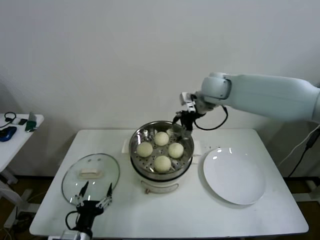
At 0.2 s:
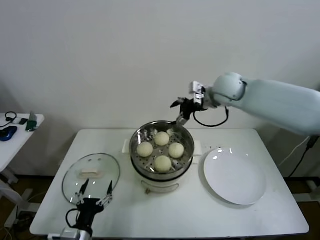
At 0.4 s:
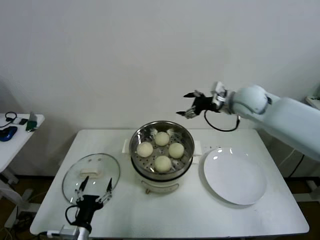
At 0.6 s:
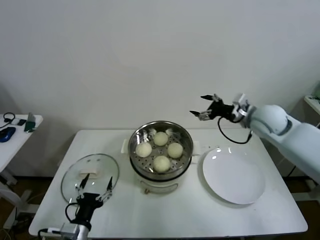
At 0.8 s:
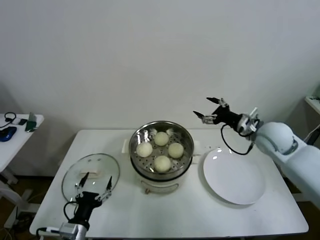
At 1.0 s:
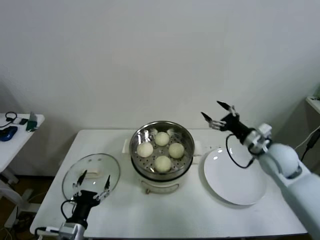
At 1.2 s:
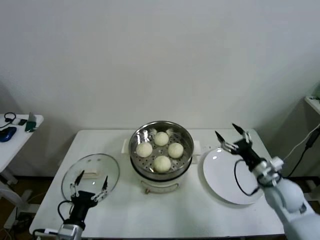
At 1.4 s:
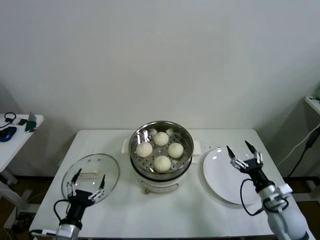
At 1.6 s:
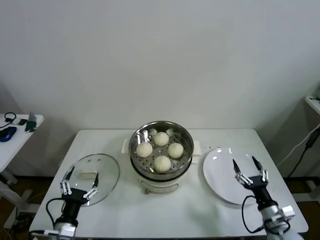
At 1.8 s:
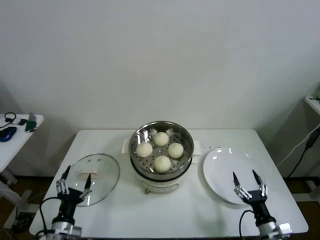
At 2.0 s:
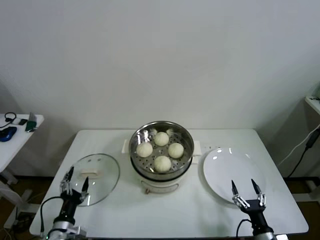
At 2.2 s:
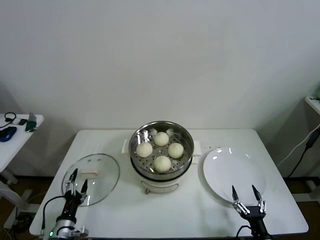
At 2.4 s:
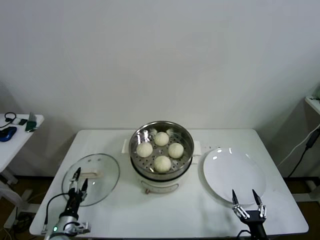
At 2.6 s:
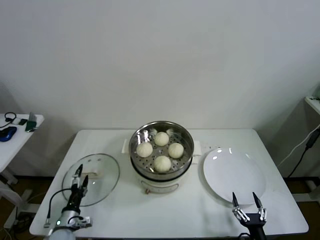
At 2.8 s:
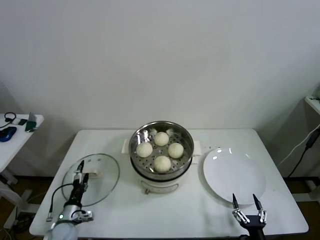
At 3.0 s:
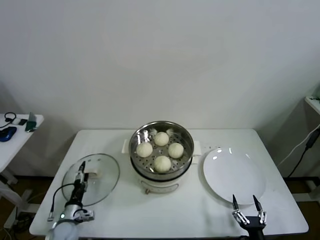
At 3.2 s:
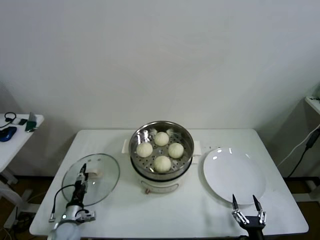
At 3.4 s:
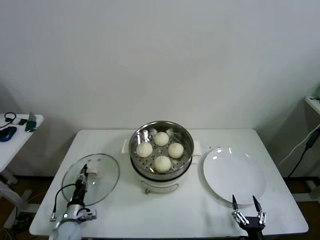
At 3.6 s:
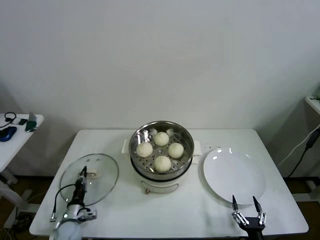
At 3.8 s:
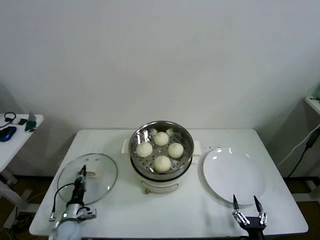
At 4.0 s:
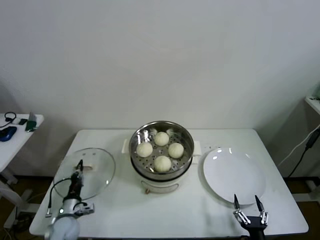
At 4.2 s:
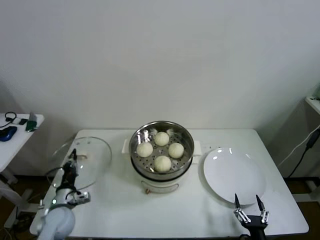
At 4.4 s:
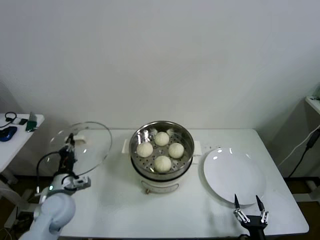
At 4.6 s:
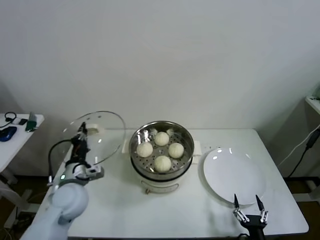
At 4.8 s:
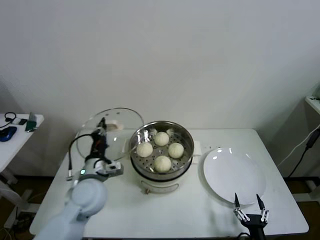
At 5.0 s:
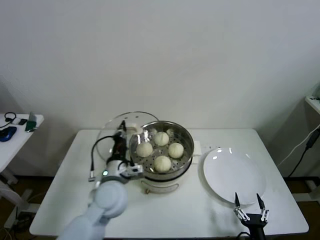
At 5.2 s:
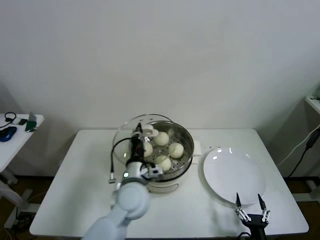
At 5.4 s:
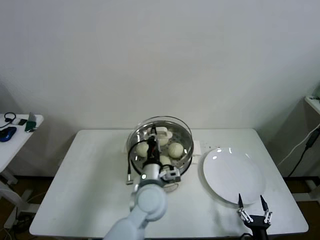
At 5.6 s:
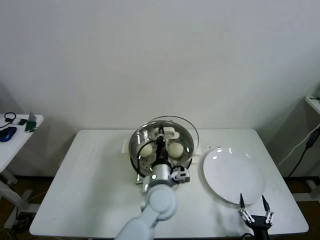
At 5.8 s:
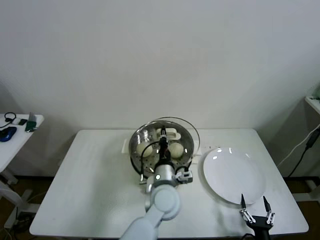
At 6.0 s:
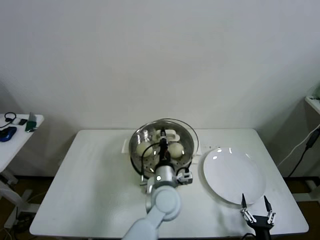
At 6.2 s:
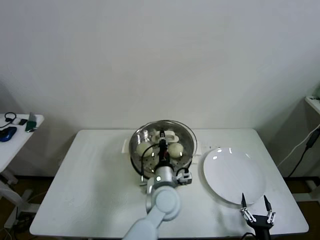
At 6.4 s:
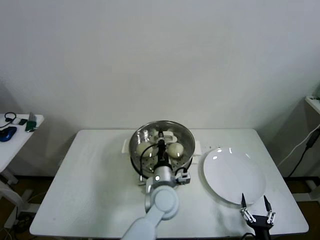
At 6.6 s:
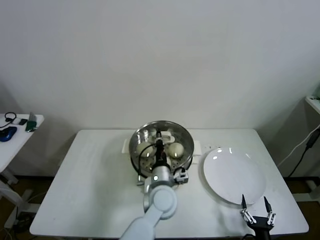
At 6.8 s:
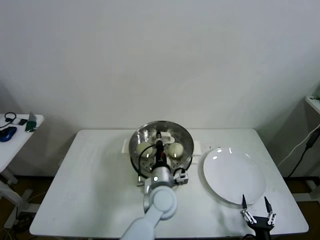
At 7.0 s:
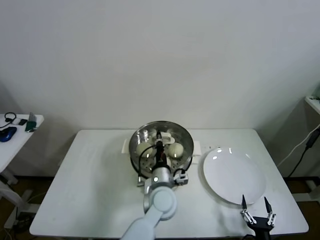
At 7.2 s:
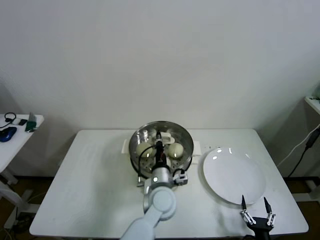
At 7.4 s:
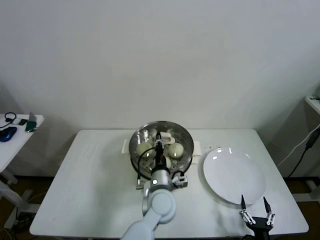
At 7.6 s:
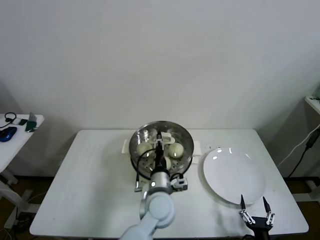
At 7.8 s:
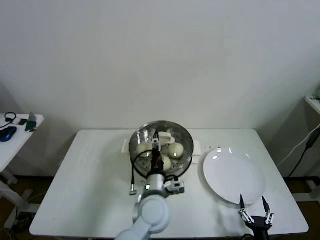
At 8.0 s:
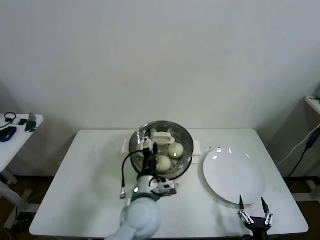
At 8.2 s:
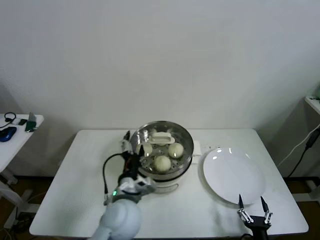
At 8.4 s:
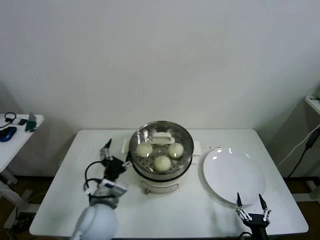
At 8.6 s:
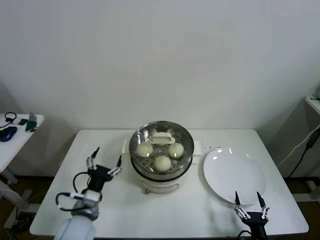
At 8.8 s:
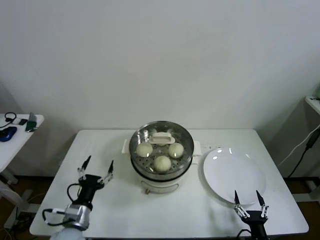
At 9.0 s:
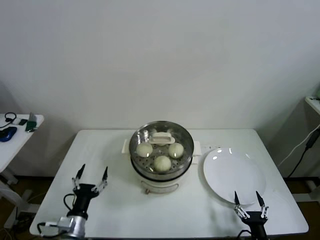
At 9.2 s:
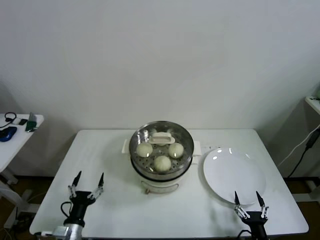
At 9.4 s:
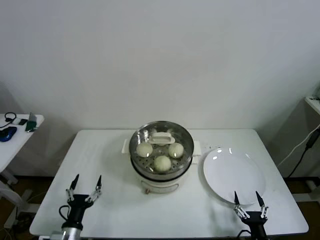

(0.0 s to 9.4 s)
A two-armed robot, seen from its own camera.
Step, 0.0 s - 3.6 s: Grasp the pot lid with left gripper.
Step, 3.8 s - 7.2 s: Place the pot lid on the steamer with left gripper.
0.0 s - 1.6 s: The right gripper shifts some 50 cm downward, backward and to the right.
1.6 s - 3.2 s: The right gripper heads backward, downward and to the left, covering some 15 cm. The left gripper is displaced downward, forward and to the left by approximately 20 cm.
3.2 s - 4.8 s: The left gripper moves upward and to the right, some 30 cm, and closes up.
4.8 s - 6.2 s: The left gripper goes approximately 25 cm to the right.
6.2 s - 7.8 s: The left gripper opens its fingers.
7.8 s - 9.4 s: The left gripper goes approximately 35 cm to the left, downward and backward, and opens its fingers.
